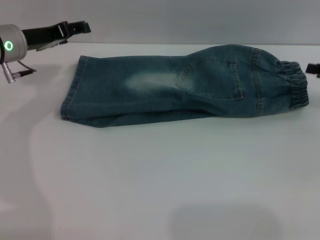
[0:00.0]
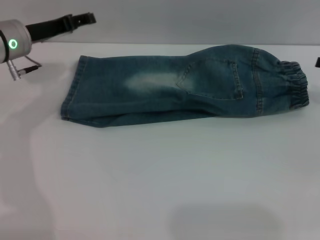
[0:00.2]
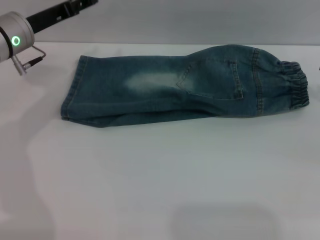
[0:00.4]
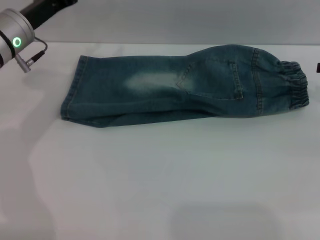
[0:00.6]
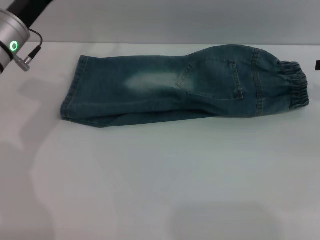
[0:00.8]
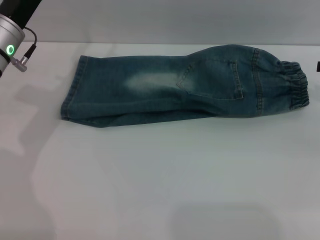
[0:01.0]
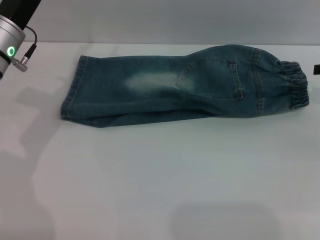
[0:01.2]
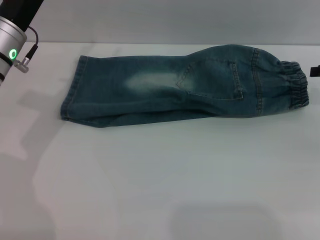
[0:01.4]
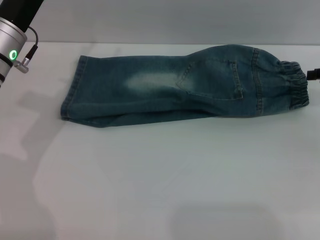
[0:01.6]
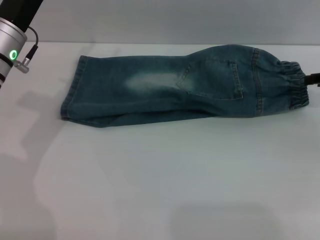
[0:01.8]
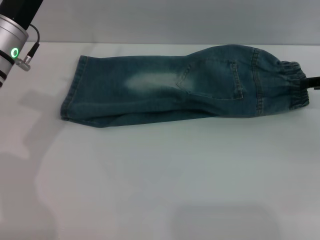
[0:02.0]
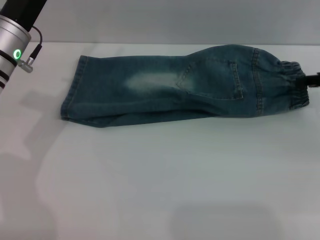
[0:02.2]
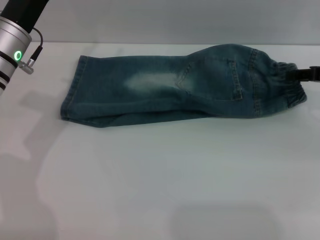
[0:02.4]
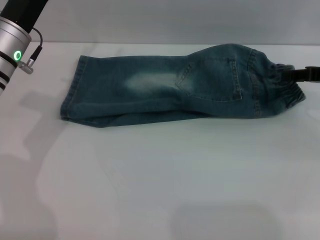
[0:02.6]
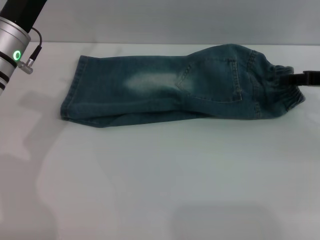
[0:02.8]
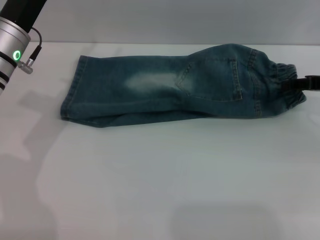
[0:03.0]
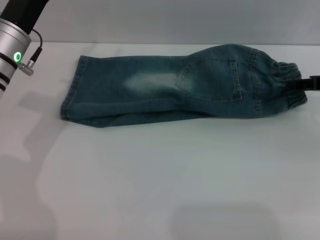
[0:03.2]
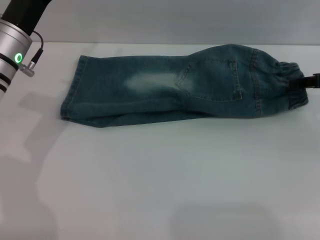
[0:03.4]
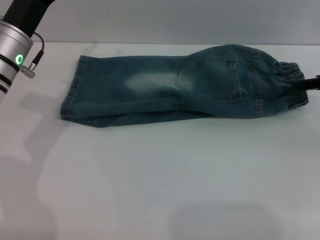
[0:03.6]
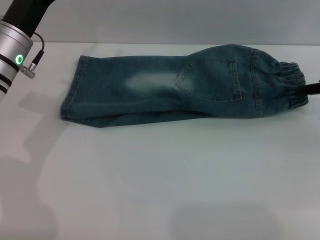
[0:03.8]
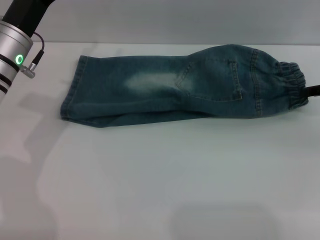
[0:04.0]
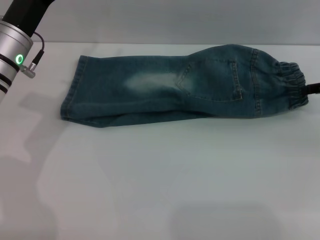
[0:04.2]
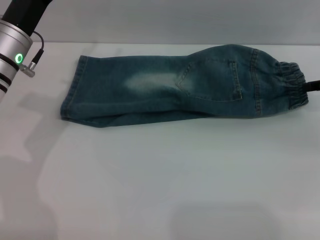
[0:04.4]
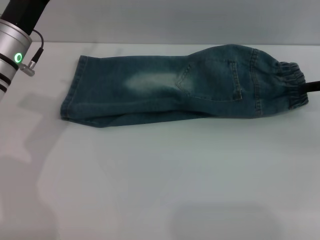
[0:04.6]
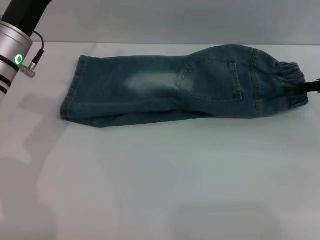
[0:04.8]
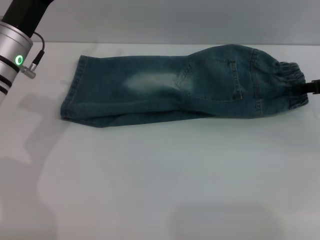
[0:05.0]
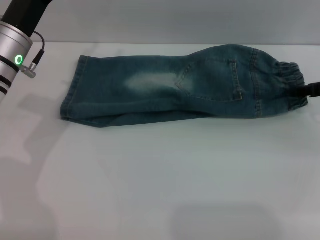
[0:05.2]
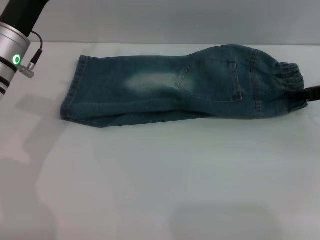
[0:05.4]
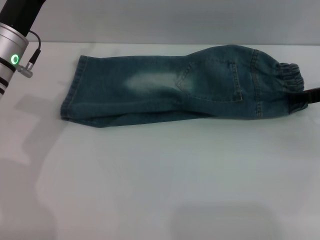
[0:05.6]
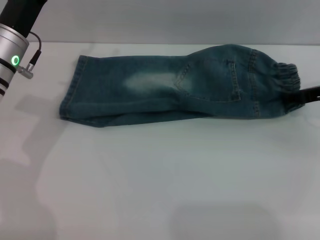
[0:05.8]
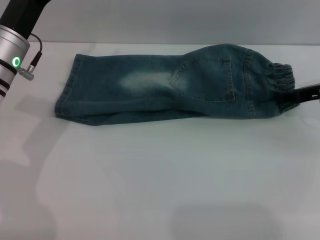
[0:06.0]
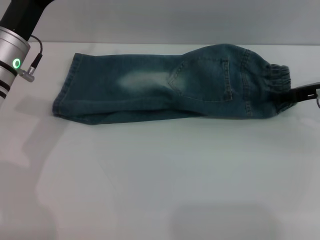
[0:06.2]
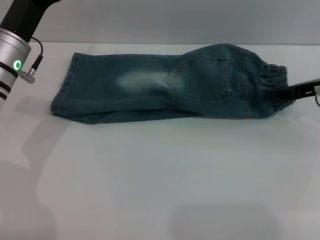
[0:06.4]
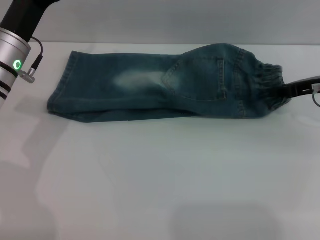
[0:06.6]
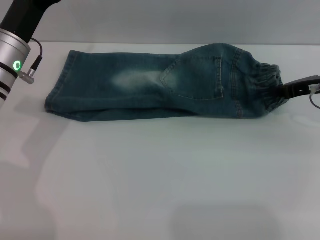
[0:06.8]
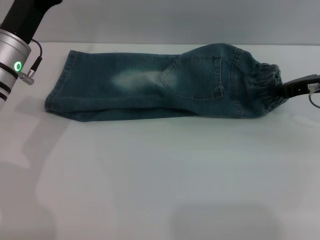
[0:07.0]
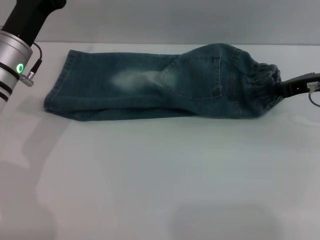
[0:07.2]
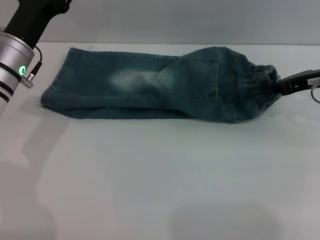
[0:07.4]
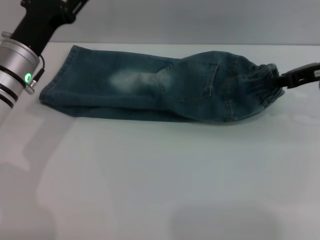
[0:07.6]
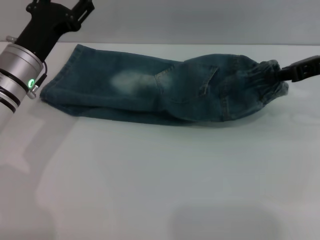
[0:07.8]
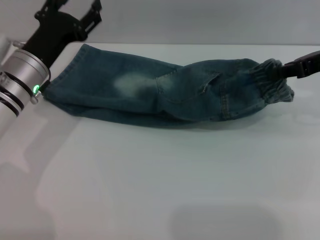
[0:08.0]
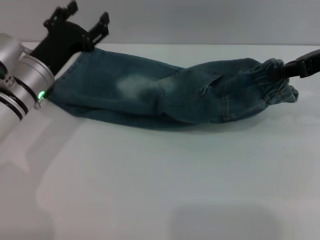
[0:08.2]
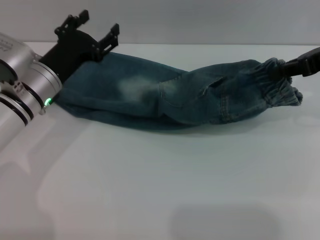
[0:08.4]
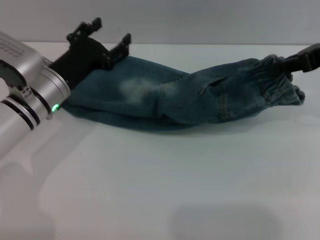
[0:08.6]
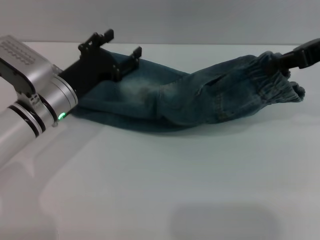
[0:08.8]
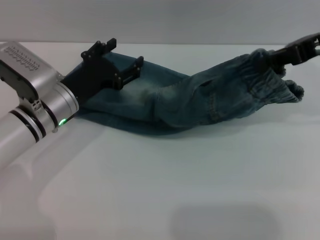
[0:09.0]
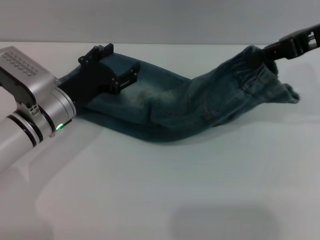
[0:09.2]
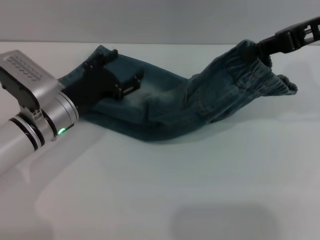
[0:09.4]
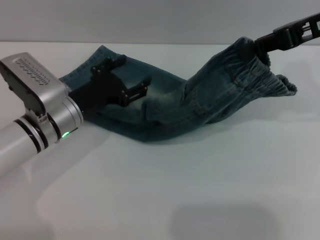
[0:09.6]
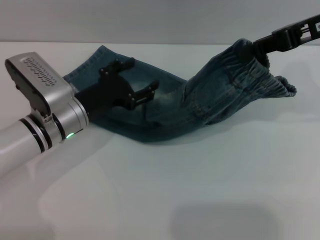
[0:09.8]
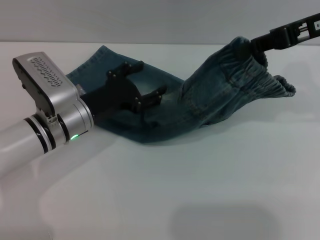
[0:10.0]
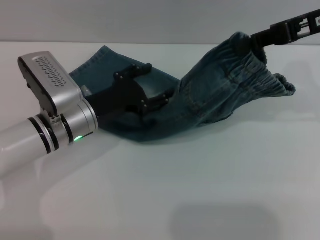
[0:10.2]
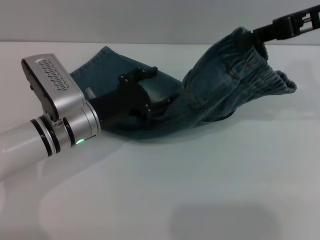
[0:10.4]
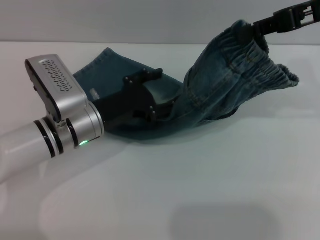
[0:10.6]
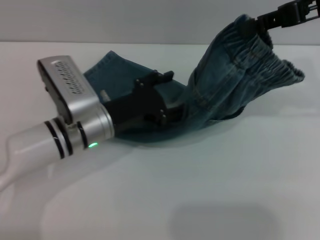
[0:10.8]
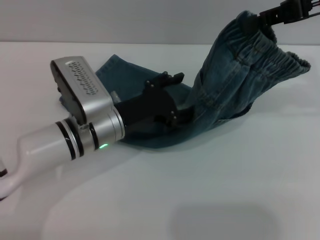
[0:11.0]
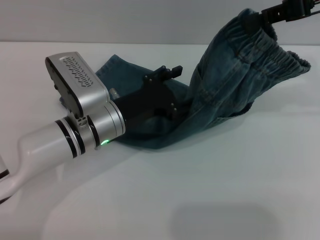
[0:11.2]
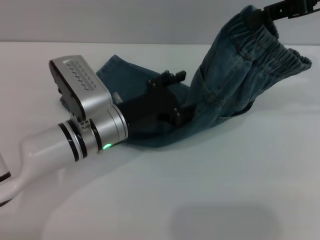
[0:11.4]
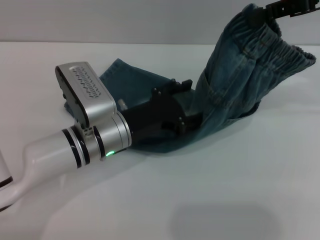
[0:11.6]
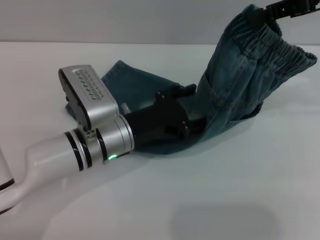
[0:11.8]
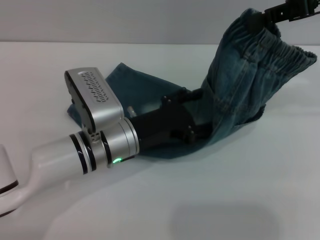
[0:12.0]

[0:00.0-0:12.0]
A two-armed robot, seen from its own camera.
1.6 to 4.4 s: The grippers move only a little.
4.4 to 6.0 s: The right gripper moves roughly 5 cm.
6.0 to 7.6 s: The right gripper heads upward, covering approximately 5 cm, and closes its fingers.
7.6 to 9.0 s: The right gripper moves upward, about 10 cm; the left gripper moves some 5 cm.
10.4 to 12.0 s: The left gripper travels to the right by roughly 5 cm.

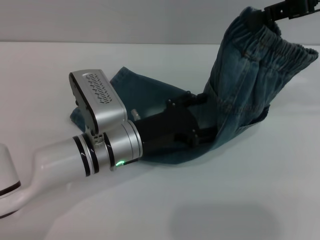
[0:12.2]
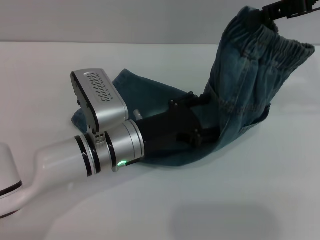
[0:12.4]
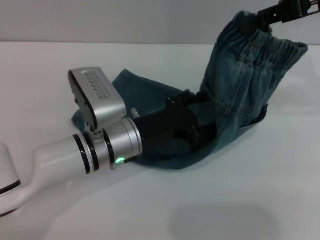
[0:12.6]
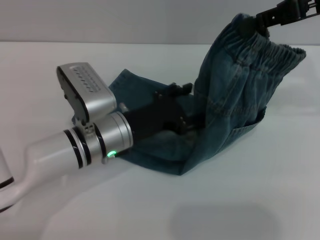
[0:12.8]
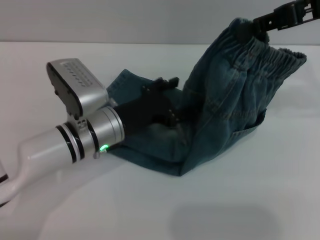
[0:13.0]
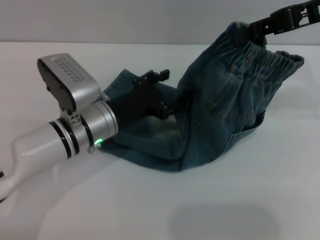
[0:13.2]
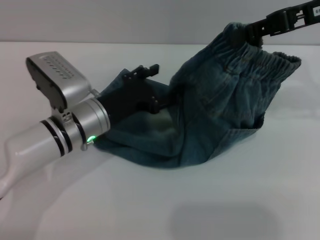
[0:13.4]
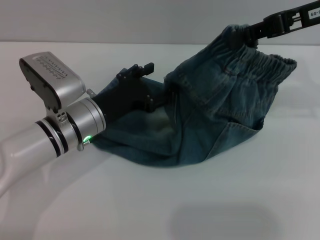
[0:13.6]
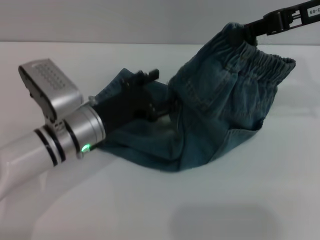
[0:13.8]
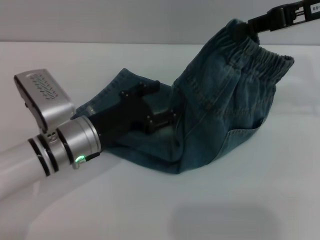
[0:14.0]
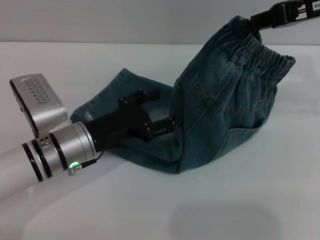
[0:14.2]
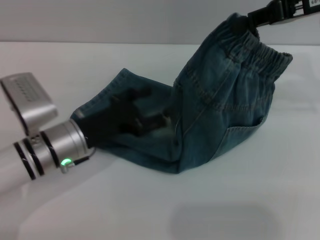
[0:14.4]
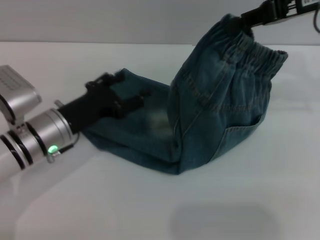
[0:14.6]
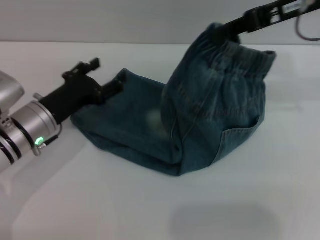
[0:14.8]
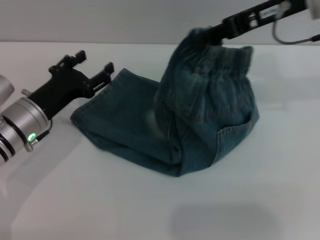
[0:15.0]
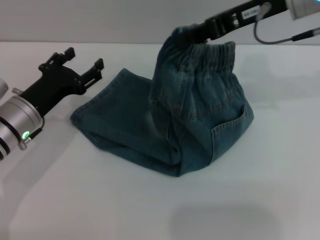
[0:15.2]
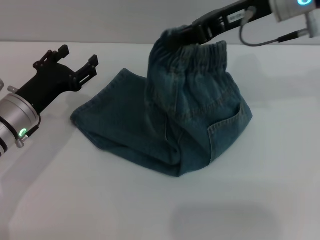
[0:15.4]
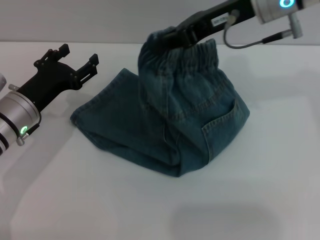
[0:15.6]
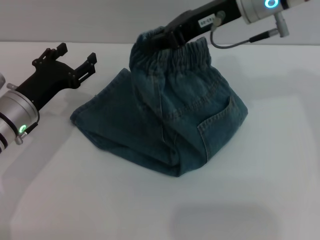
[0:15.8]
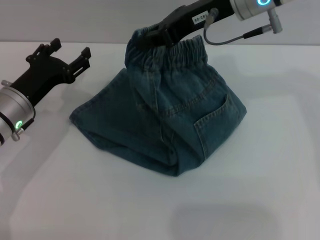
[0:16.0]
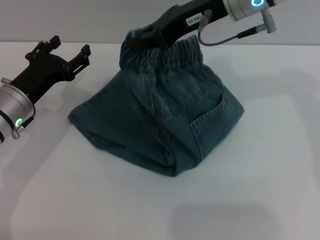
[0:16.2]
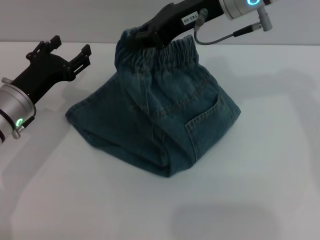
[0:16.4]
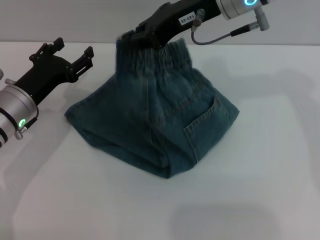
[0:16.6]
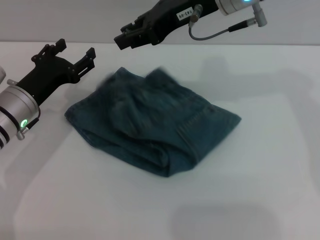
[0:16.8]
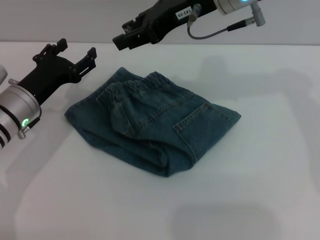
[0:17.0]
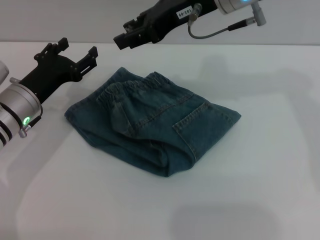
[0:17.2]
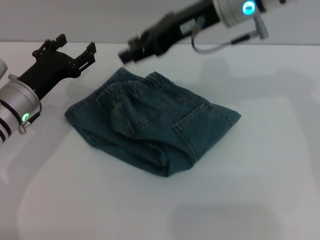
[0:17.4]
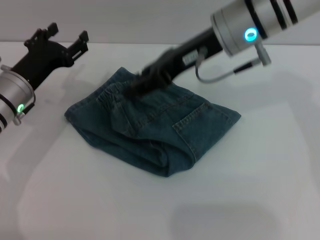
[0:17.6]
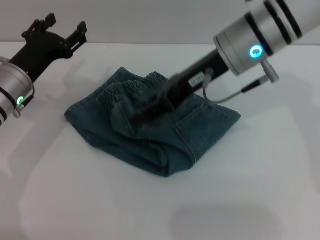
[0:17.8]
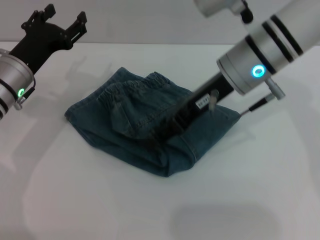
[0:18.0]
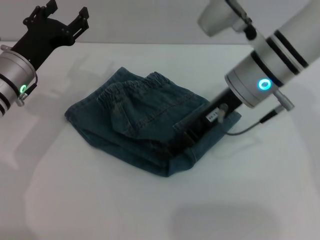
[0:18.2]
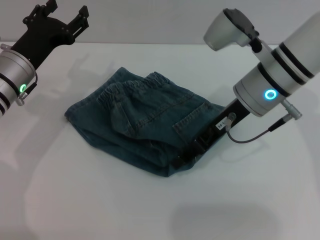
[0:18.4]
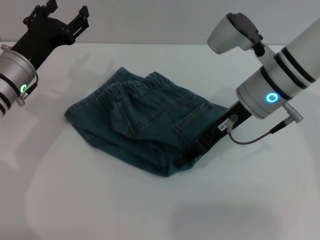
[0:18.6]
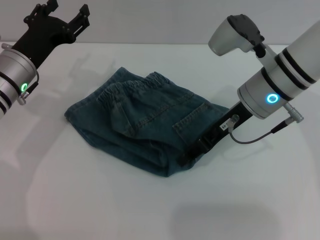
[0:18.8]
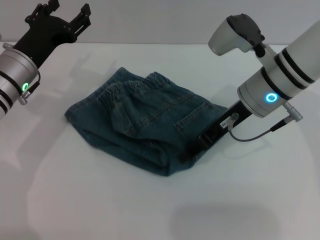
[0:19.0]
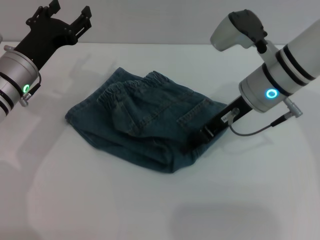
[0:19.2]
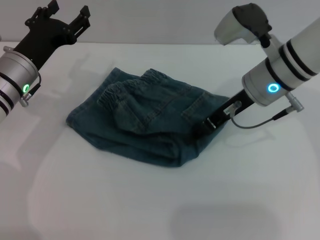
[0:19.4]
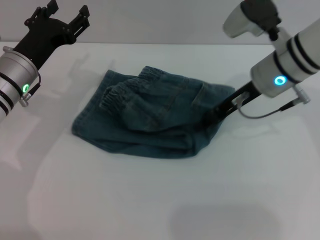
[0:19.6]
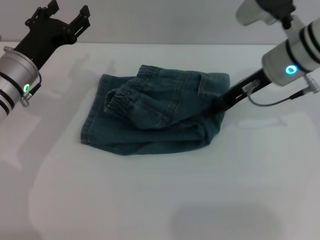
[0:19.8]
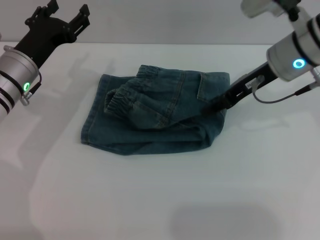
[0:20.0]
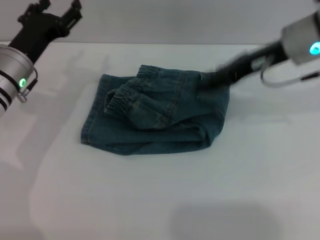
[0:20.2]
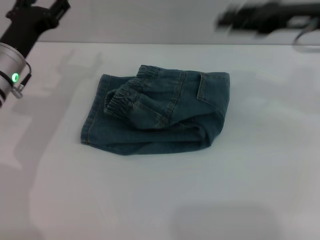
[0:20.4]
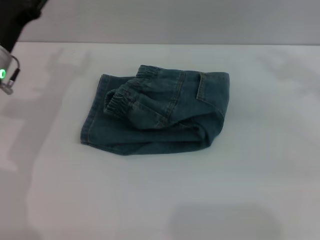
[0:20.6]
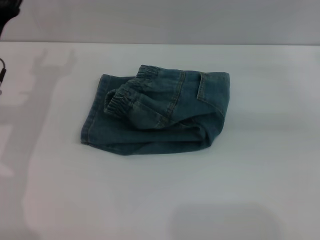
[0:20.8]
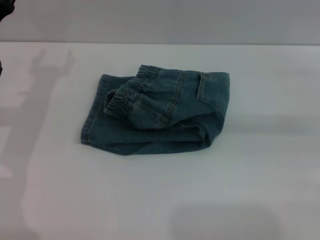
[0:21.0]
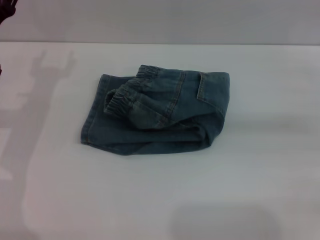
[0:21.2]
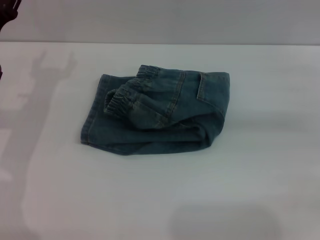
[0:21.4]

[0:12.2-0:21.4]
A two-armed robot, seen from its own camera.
Step, 12.2 to 17.8 s: Fold the pants from right to left with the right gripper.
Step, 18.0 to 20.0 s: Place the folded trousers onto the center area with the right grippers.
12.2 to 13.8 s: The left gripper heads to the left, covering about 5 cm.
13.8 to 15.2 s: The grippers both shift to the left by about 10 cm.
15.2 to 16.8 s: The right gripper heads to the left, covering some 10 cm.
16.8 to 18.4 s: The right gripper is displaced downward by approximately 10 cm, and opens its fingers.
18.4 to 19.8 s: The right gripper changes place by roughly 5 cm.
19.8 to 21.4 s: The right gripper is displaced to the right by about 20 cm.

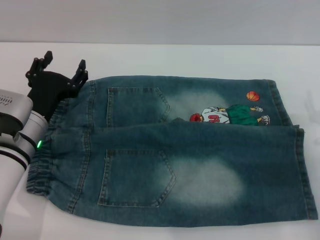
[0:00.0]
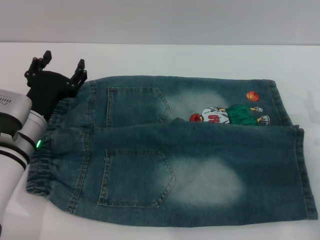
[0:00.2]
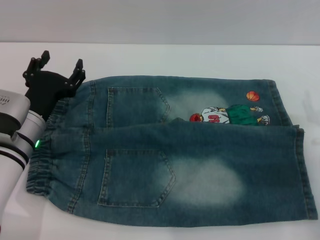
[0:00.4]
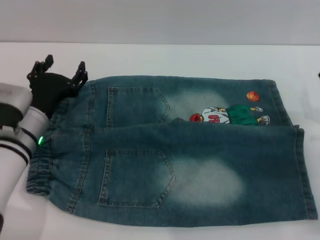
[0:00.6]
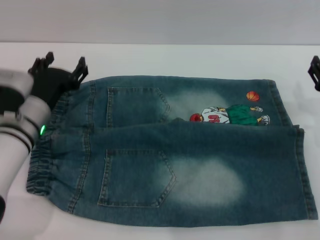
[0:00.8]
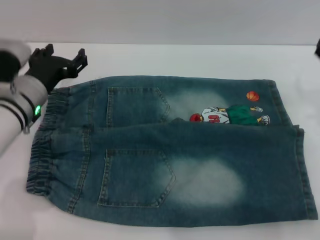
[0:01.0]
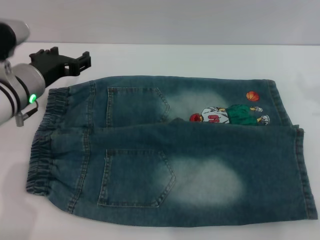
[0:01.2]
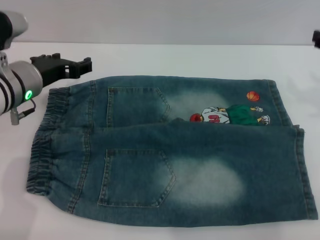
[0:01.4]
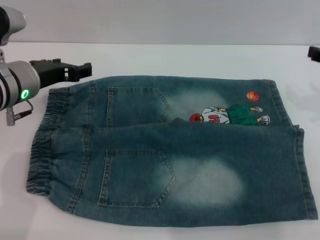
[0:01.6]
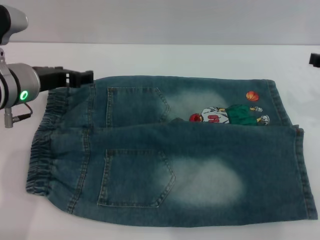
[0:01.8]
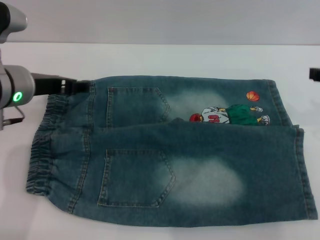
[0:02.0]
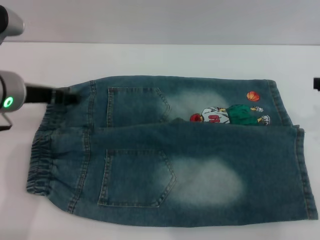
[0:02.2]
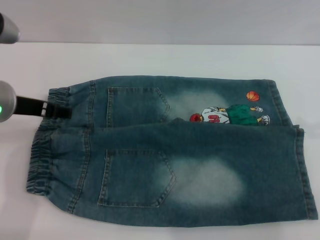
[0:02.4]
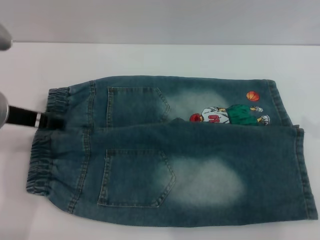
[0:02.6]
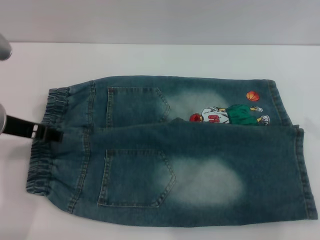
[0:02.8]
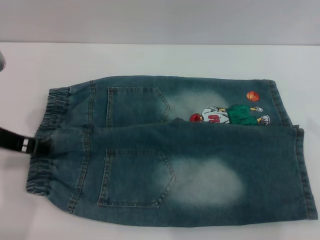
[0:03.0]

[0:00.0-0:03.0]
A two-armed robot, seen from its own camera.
0.0 to 1.6 s: Both grippers move upward, roughly 15 cm.
1.6 to 3.0 s: The left gripper travels backward by roughly 5 cm.
